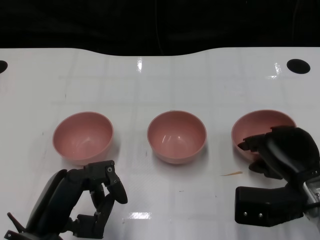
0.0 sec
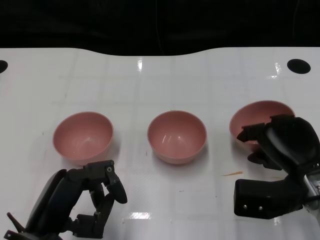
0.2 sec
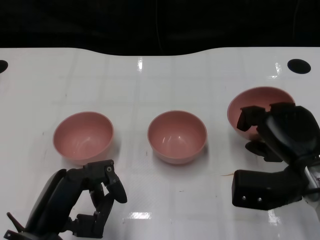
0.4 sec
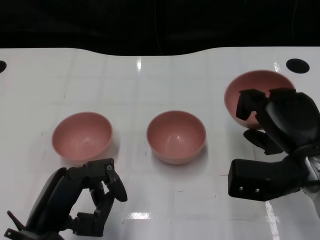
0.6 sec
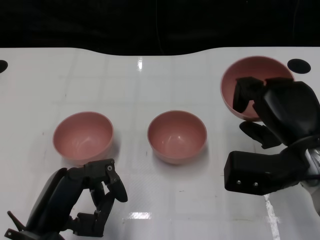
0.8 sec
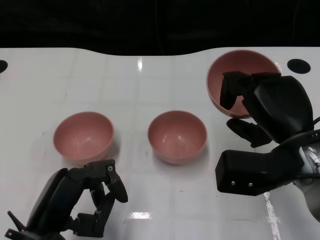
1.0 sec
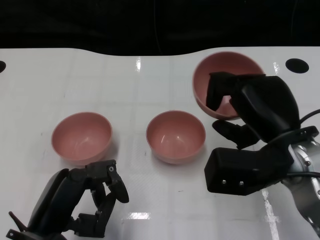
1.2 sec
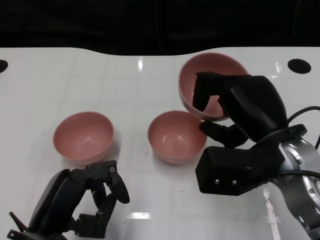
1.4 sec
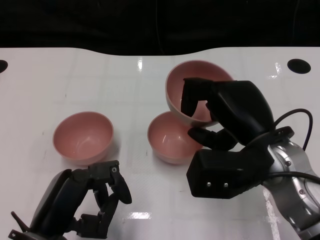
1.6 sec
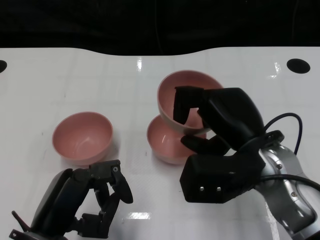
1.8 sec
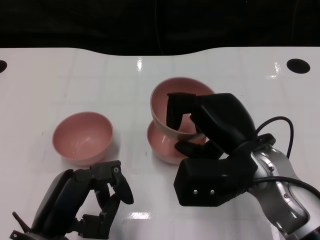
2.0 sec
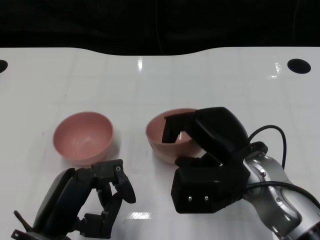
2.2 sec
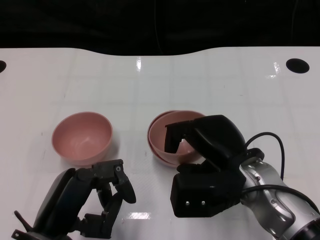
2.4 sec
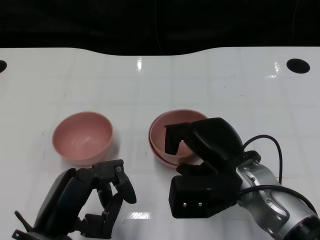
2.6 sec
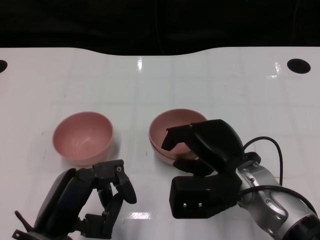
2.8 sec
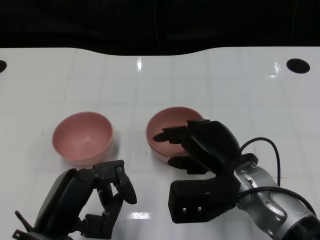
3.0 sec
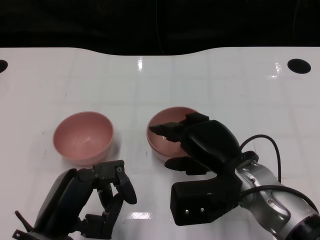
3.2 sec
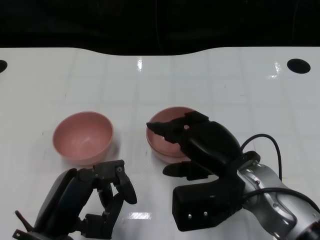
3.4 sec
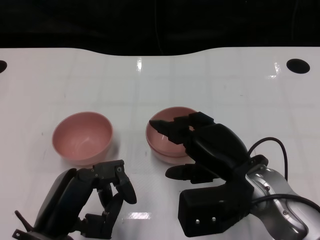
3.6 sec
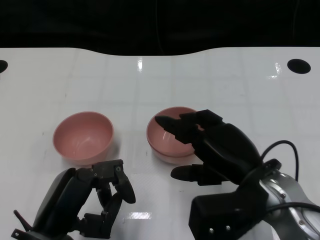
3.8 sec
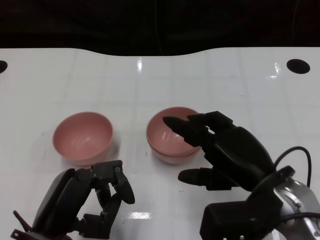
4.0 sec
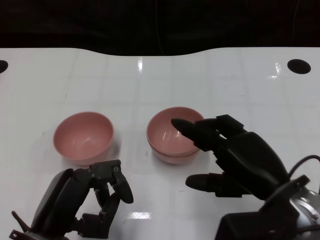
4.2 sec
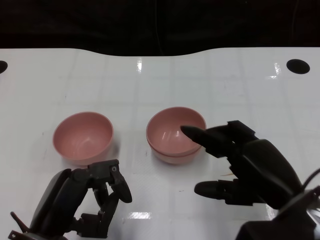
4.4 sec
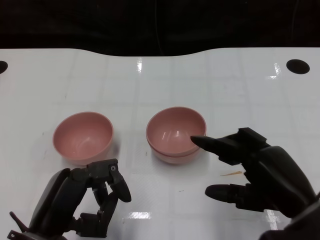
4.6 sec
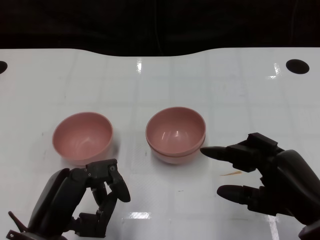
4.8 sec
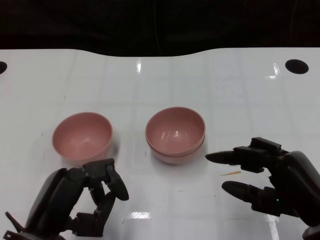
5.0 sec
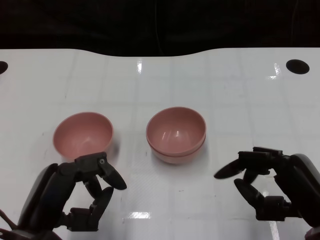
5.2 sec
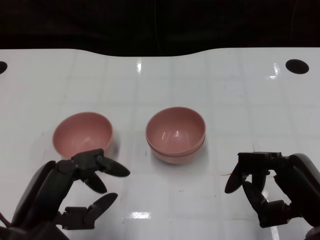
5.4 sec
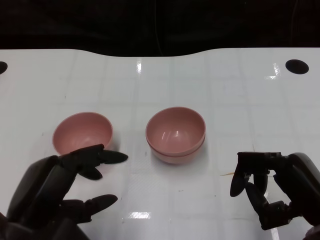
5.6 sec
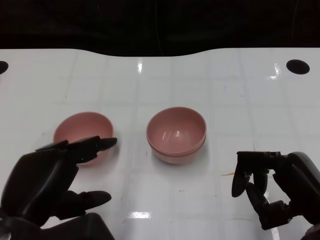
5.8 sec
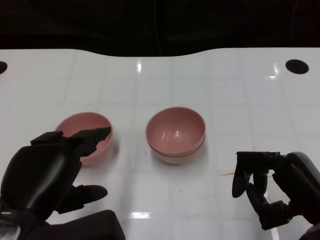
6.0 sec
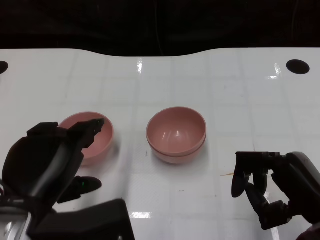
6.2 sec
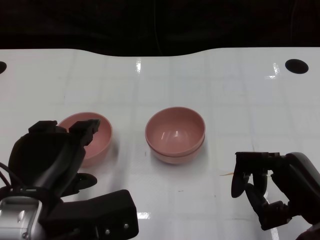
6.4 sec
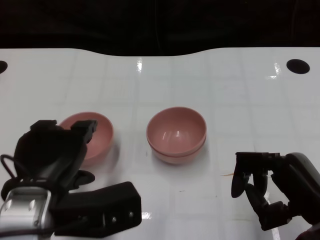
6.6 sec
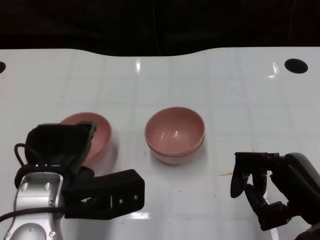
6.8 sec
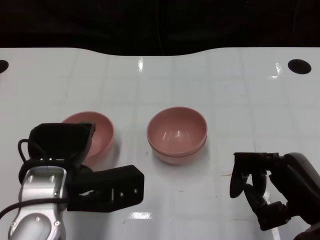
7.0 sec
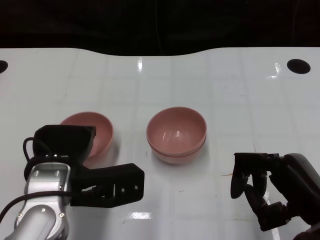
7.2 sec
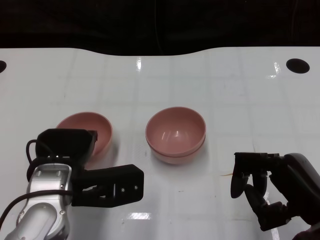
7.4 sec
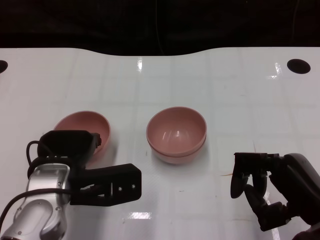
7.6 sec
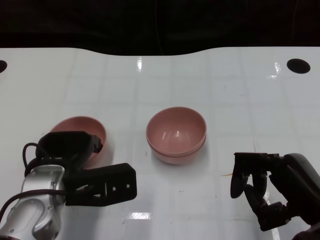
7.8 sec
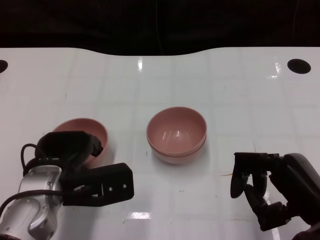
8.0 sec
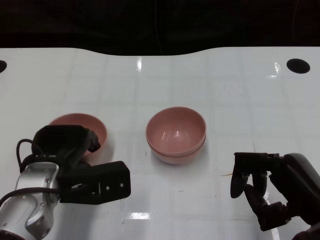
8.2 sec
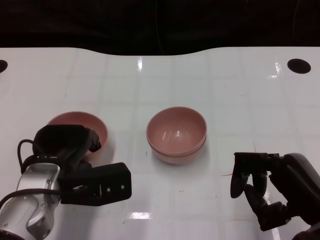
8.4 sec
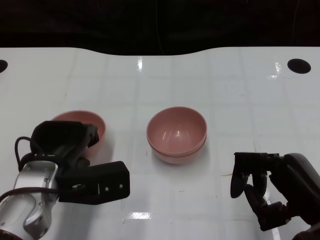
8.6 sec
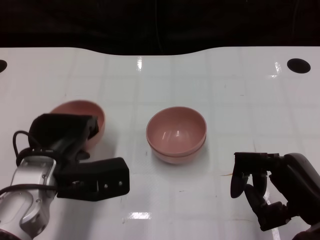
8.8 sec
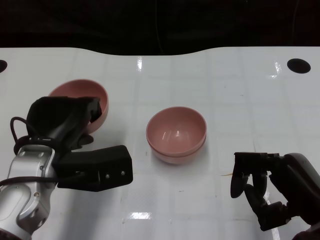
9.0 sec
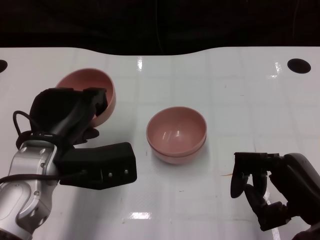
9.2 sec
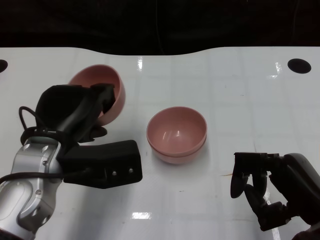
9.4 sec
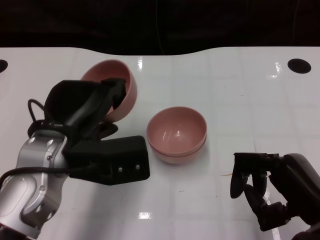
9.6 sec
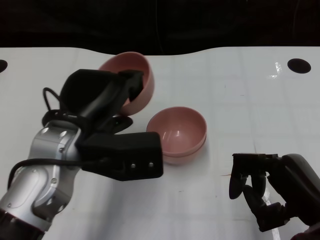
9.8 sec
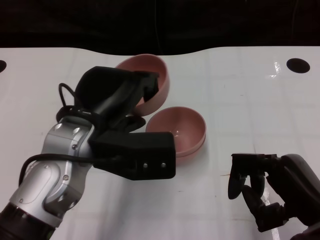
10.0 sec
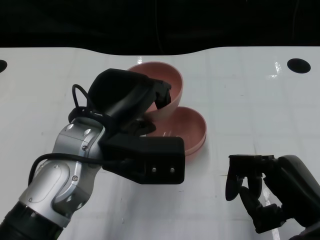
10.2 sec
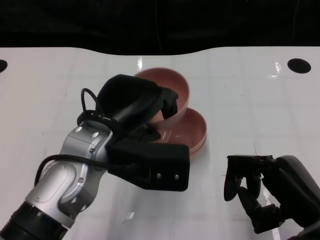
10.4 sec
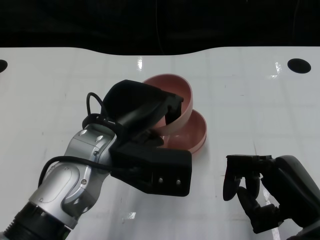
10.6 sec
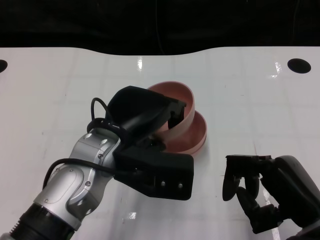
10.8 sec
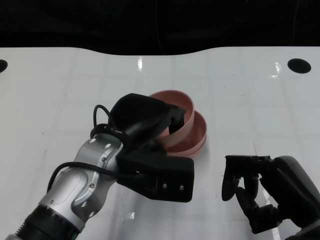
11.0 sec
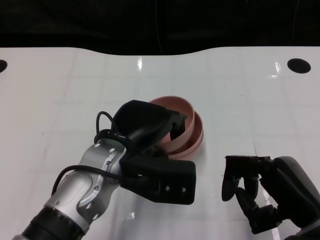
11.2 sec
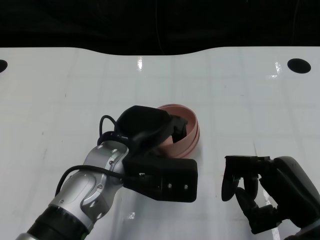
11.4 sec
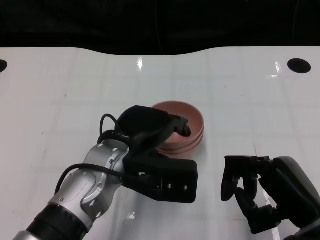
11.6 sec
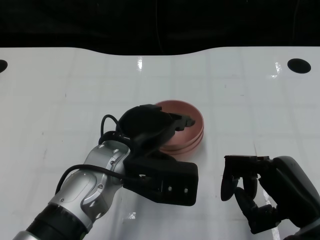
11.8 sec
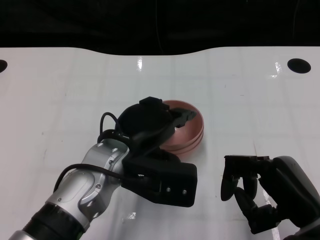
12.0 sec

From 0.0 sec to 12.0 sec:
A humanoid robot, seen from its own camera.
Task of the whole recording: Pick up the bowl on one side of the table and place it on top of the middle bowl, then pick up the bowl on the other side of the table and place it on top of the middle bowls.
Step, from 0.4 sec to 4.0 sec: Place the bowl on the right onto the bowl in the middle with right gripper.
Step, from 4.2 sec to 8.8 sec: Grasp the bowl on the left with the left gripper.
From 0.0 sec to 1.6 sec: The right hand goes some 10 cm upward and to the left.
From 1.6 sec to 3.0 sec: The right hand travels downward by roughly 5 cm.
From 3.0 sec to 4.4 sec: The right hand goes about 10 cm to the right and backward.
From 4.4 sec to 6.0 sec: The left hand shifts about 5 cm upward.
From 6.0 sec to 7.6 sec: The left hand heads forward and downward, covering approximately 10 cm.
From 9.0 sec to 10.4 sec: The left hand heads to the right and upward, covering about 10 cm.
From 10.4 sec to 12.0 sec: The left hand shifts by roughly 5 cm.

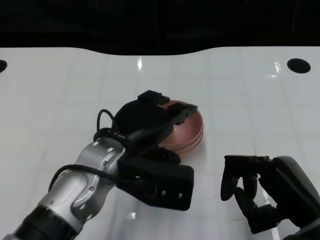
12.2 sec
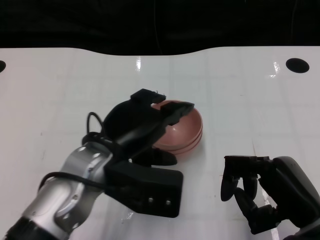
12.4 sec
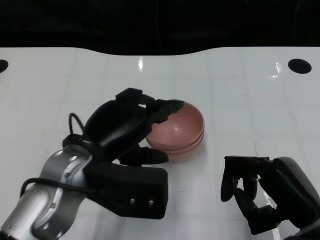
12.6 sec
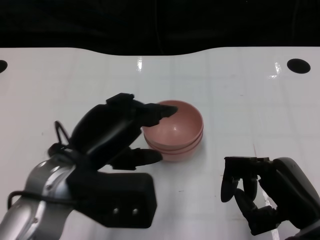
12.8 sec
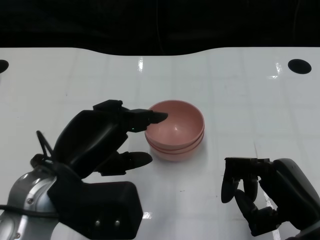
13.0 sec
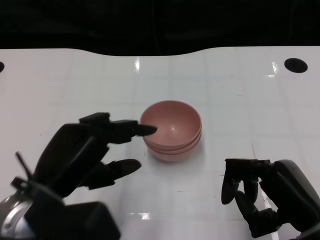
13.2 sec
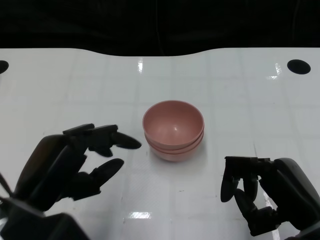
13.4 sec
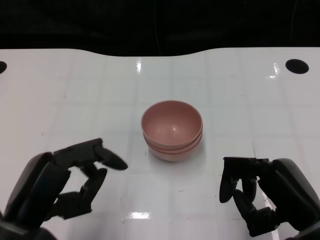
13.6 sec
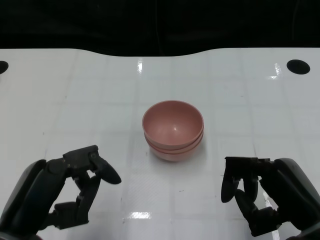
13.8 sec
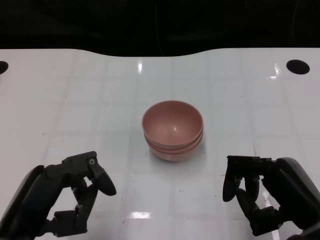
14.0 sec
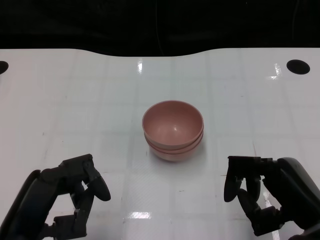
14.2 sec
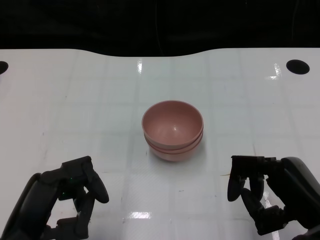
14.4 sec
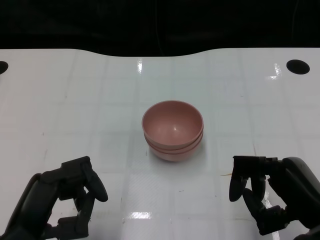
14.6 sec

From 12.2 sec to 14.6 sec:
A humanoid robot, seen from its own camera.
Task of the whole recording: Pick up the bowl on one side of the table and place it on top of the middle bowl, then pick up the bowl on the other side of the table and place it on top of the middle bowls.
From 12.2 sec to 13.4 sec: The left hand is displaced to the left and backward by roughly 15 cm.
From 13.4 sec to 14.6 sec: The left hand ends up roughly 5 cm from where it was.
